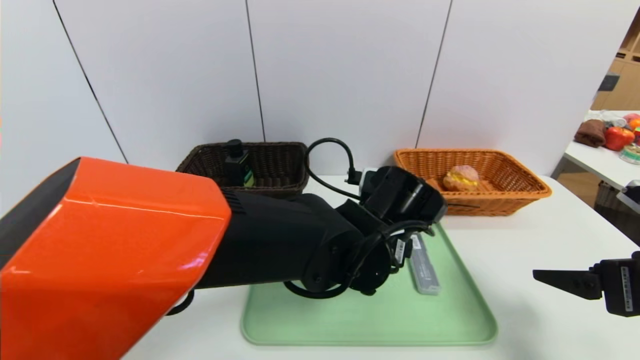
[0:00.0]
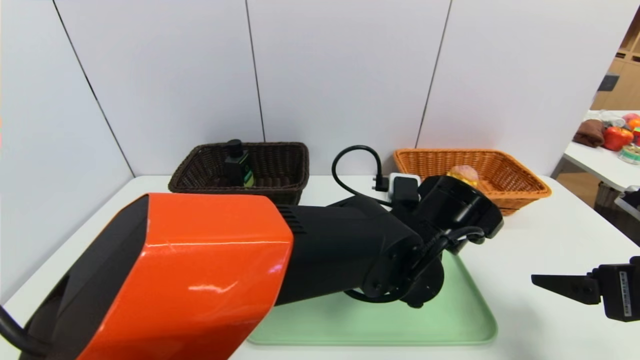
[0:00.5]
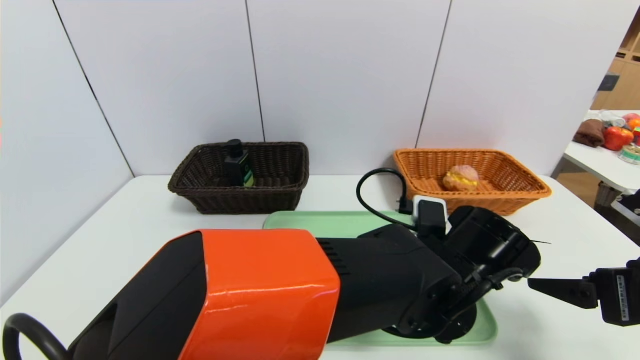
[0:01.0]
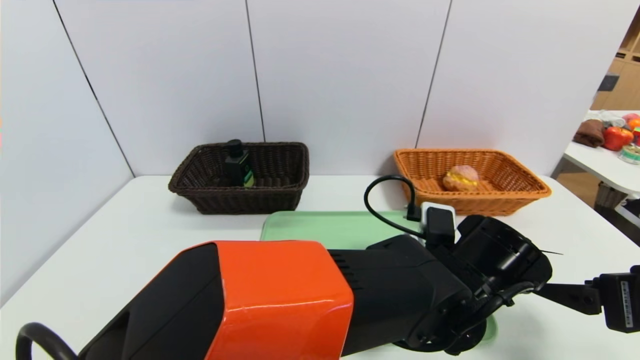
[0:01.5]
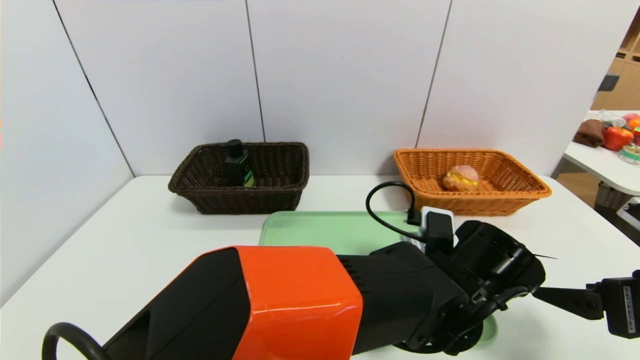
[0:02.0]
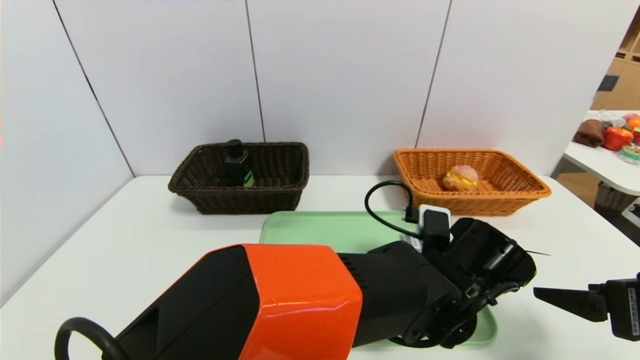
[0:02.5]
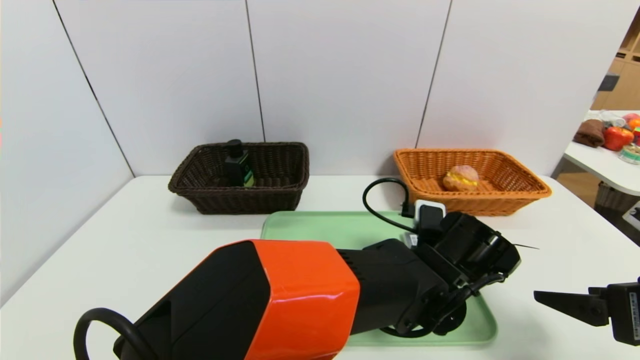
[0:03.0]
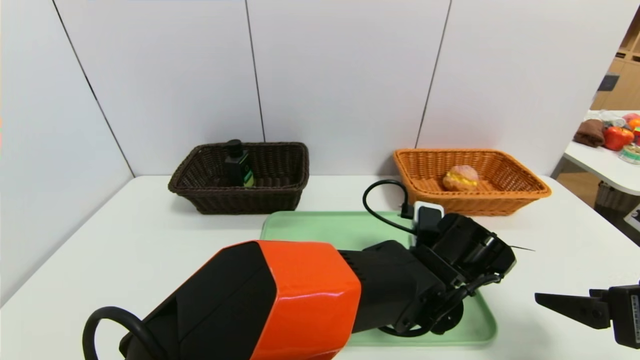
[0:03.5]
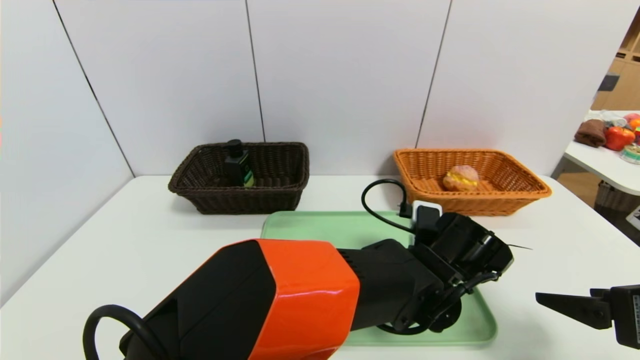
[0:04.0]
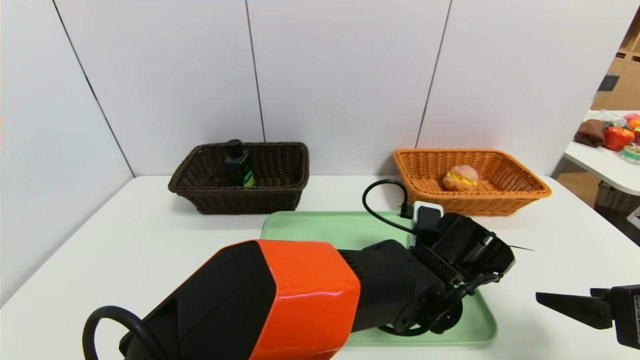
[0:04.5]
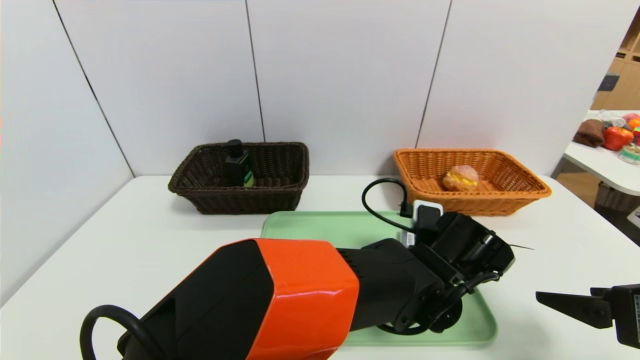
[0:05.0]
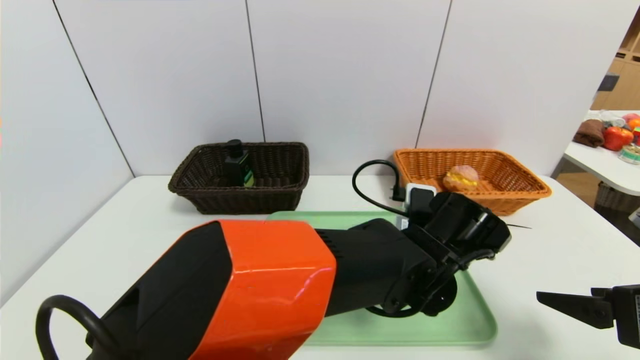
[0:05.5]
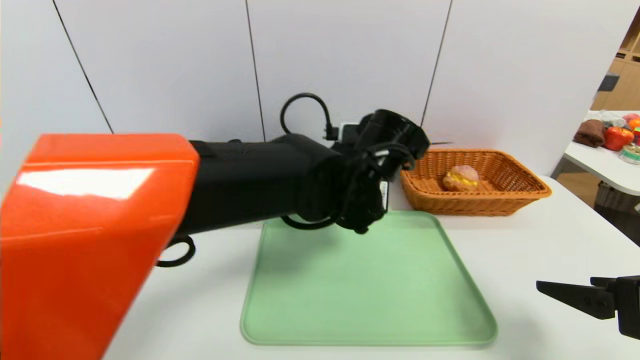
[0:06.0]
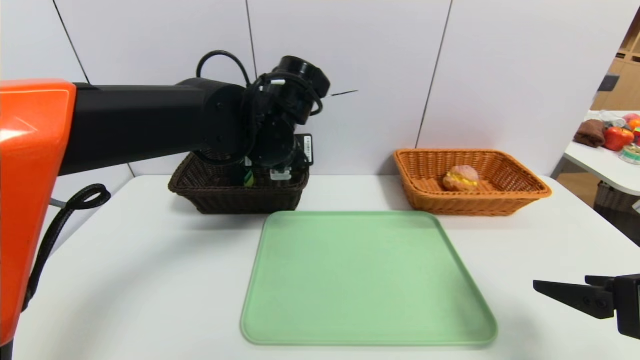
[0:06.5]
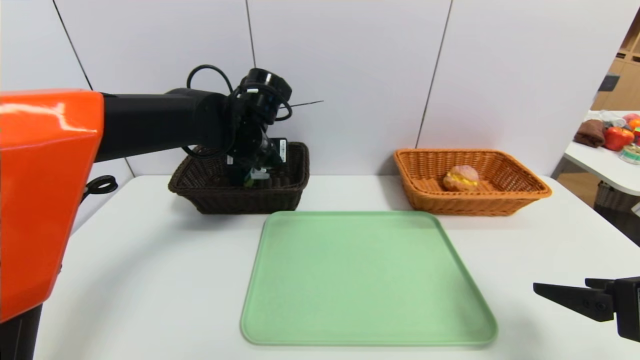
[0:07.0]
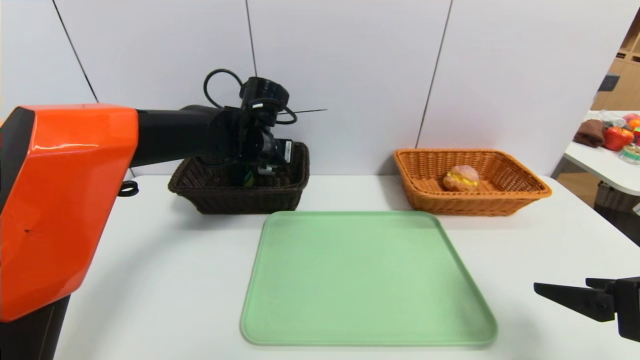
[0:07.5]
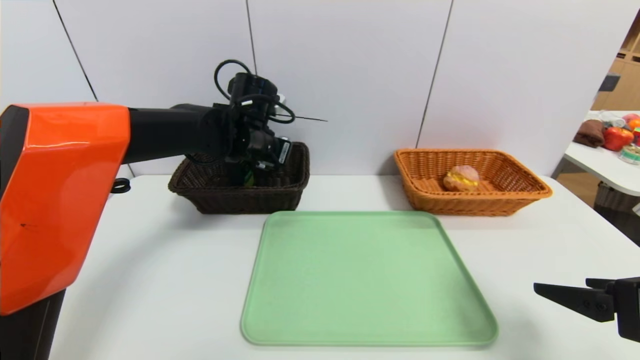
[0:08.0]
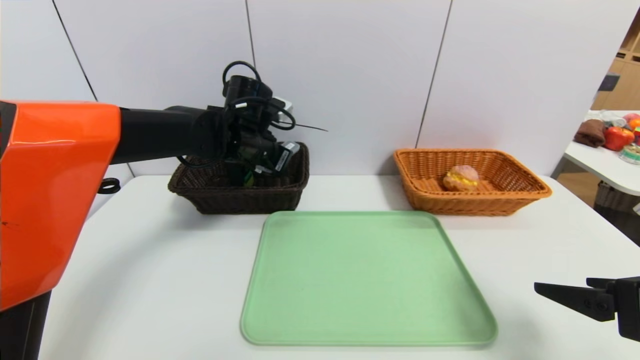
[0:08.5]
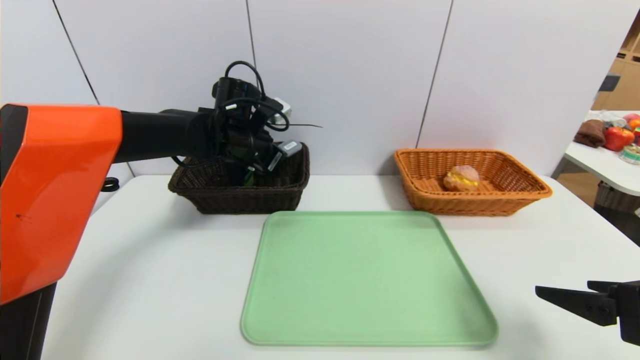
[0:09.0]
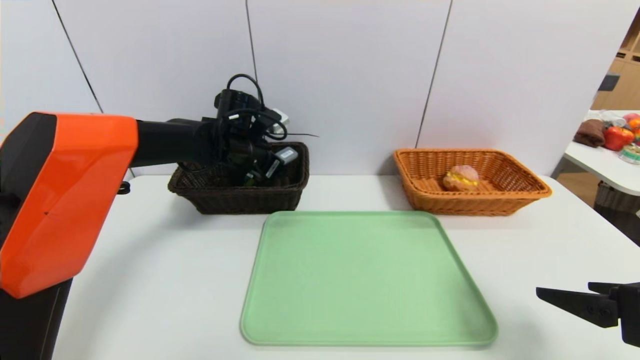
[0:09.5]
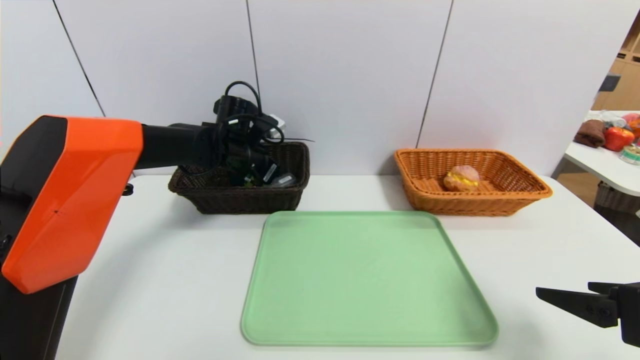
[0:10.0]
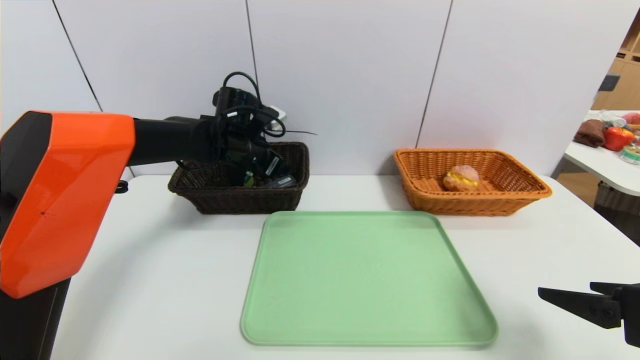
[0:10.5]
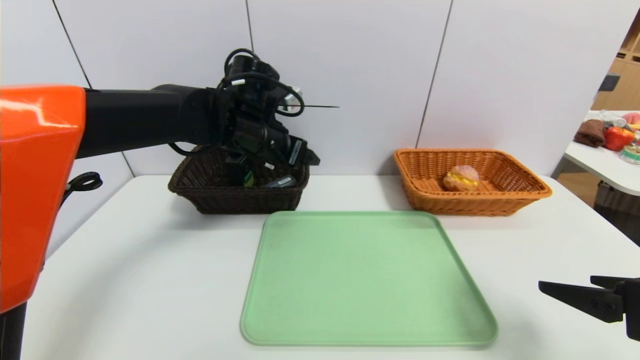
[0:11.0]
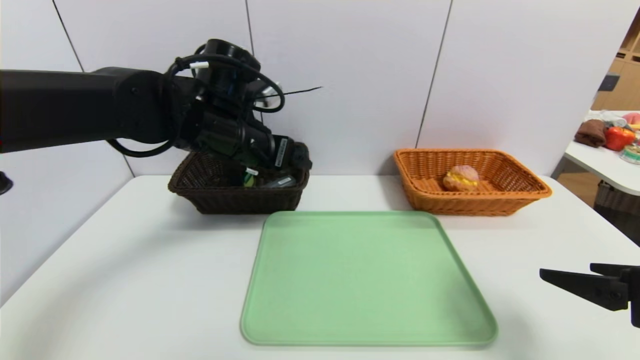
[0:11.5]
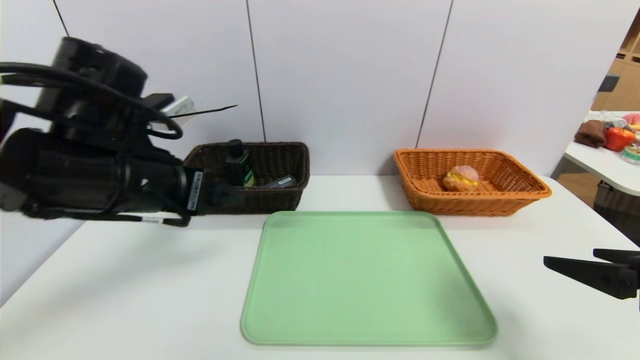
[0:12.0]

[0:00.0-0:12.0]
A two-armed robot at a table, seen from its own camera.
Task of the whole recording: place the food in the right basket with the right gripper, and place the non food items in the left basket with the left gripper.
Step, 0:00.0 to 0:10.5: Grasp the compass and put it in the left basket.
0:00.0 to 0:02.0: The left gripper travels to the right by about 10 cm.
0:02.0 to 0:04.0: The grippers stay close to where they were, moving slightly.
0:04.0 to 0:06.0: The left gripper heads upward and to the left, covering about 15 cm, and closes its fingers.
0:06.0 to 0:08.0: The left gripper goes about 20 cm to the left and forward.
0:08.0 to 0:10.0: The left gripper moves about 5 cm, and opens its fingers.
0:10.0 to 0:12.0: The left gripper travels backward by some 25 cm, and opens up.

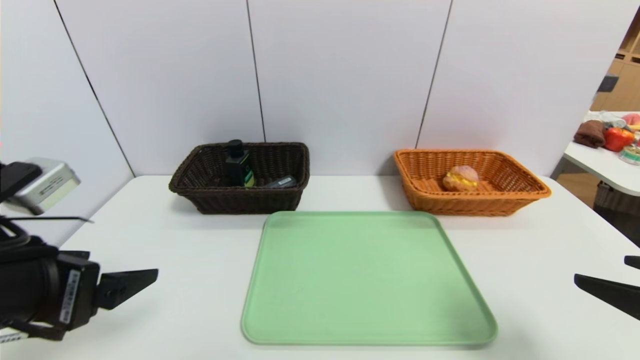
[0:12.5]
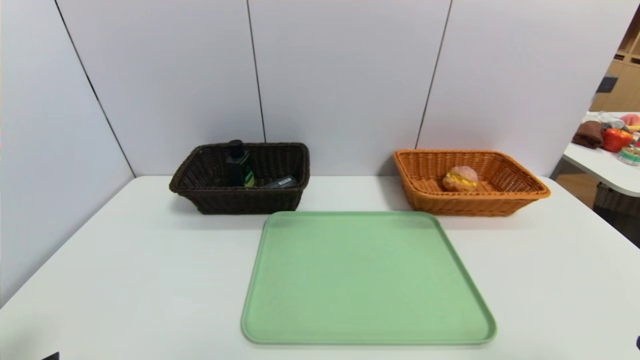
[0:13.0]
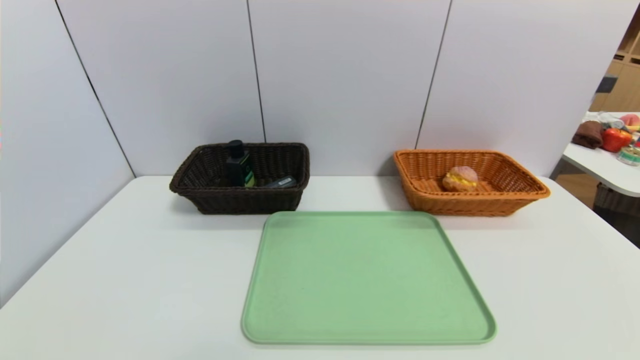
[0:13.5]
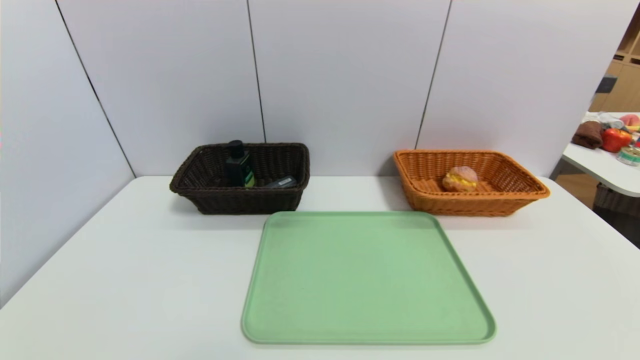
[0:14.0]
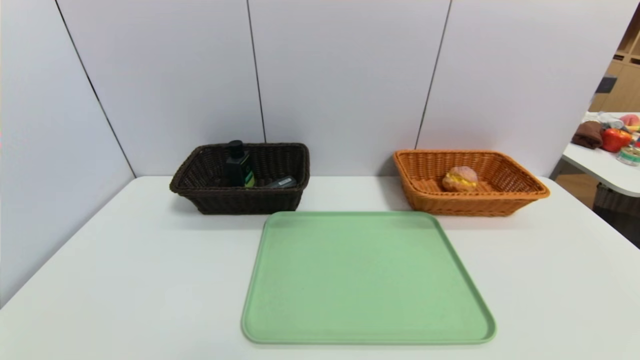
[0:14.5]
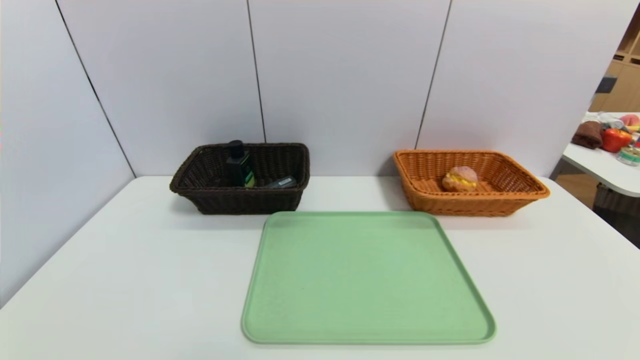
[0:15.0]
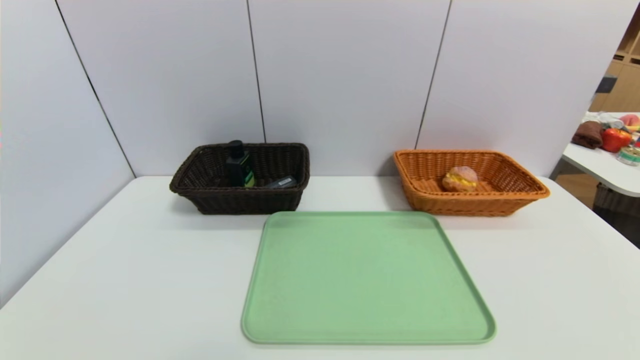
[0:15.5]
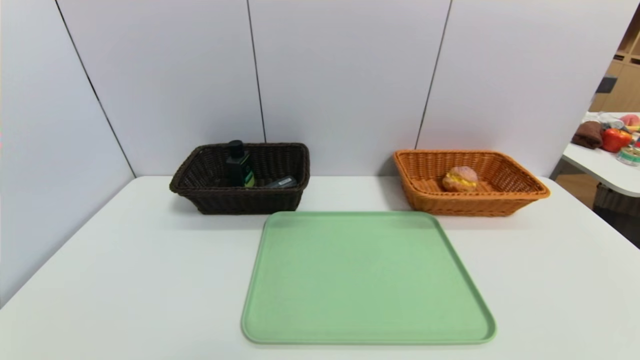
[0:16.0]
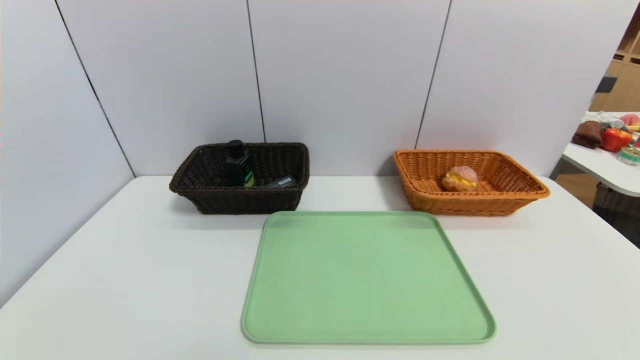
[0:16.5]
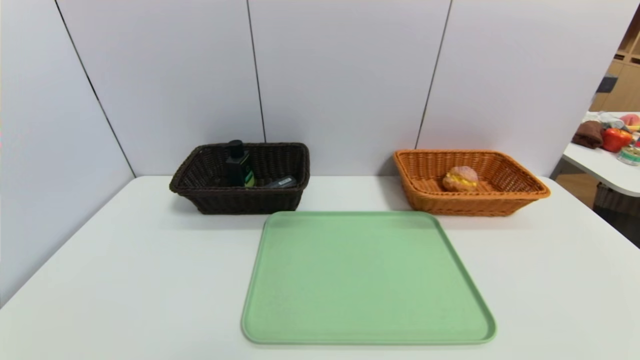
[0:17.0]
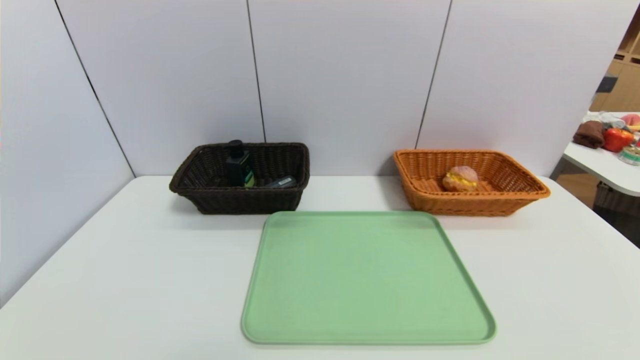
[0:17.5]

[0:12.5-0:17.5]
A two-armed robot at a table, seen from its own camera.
Task of the whole recording: place the food in the right basket with the right gripper, and place the non food items in the left basket with the left gripper.
0:12.5 to 0:15.0: Both grippers travel together backward and downward, about 20 cm.

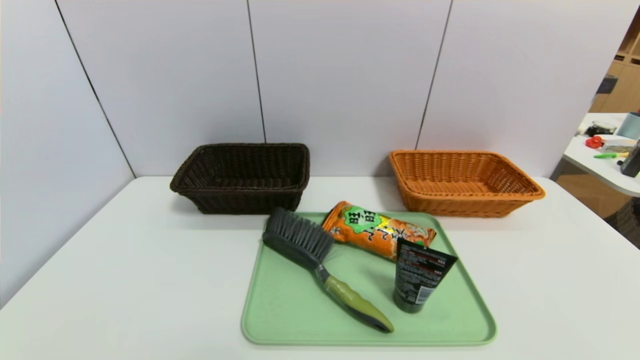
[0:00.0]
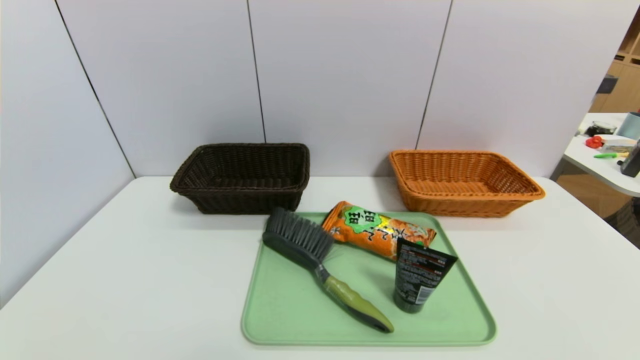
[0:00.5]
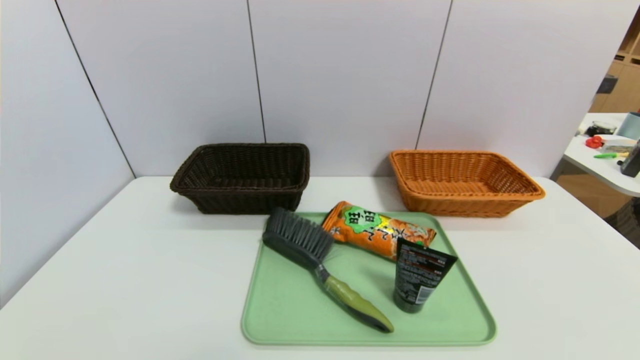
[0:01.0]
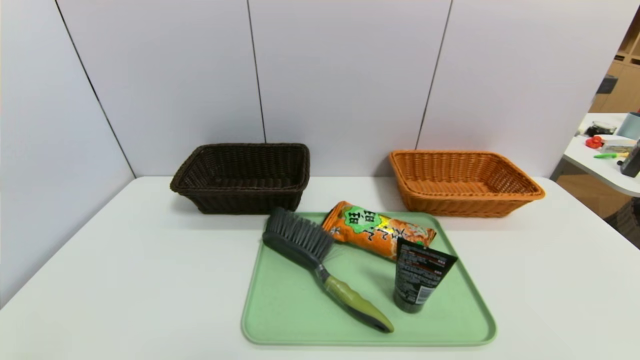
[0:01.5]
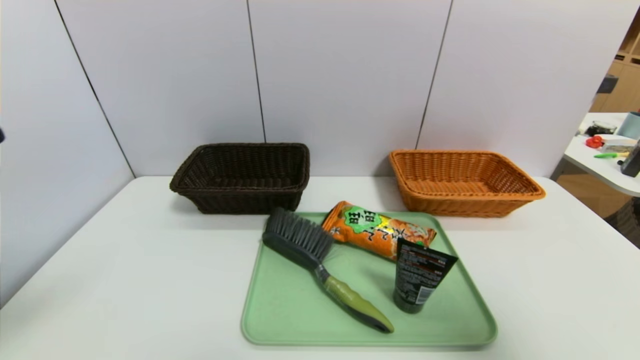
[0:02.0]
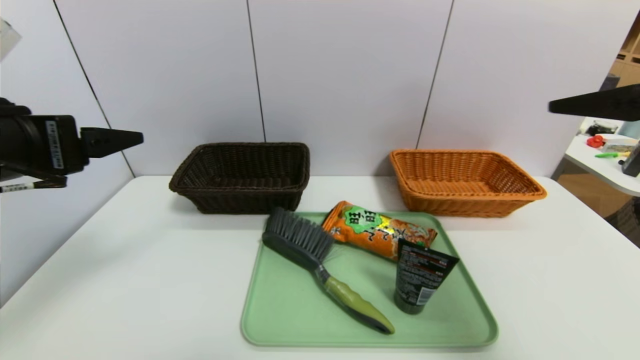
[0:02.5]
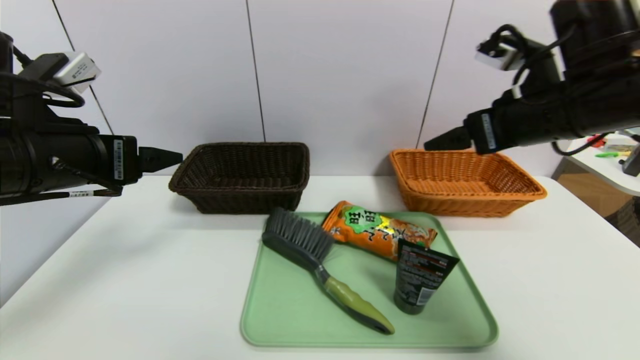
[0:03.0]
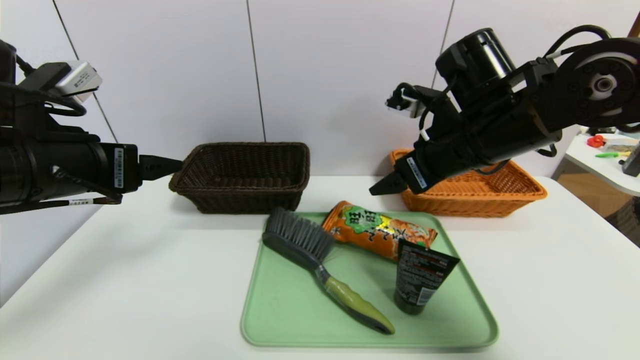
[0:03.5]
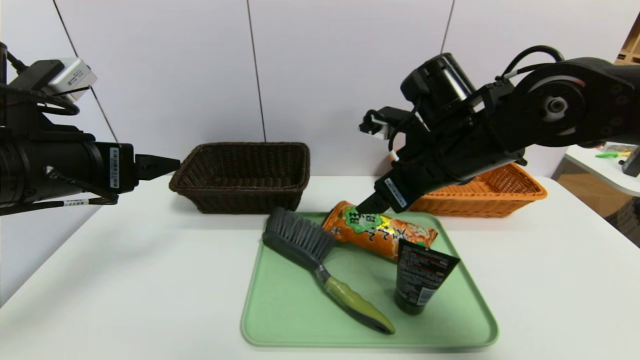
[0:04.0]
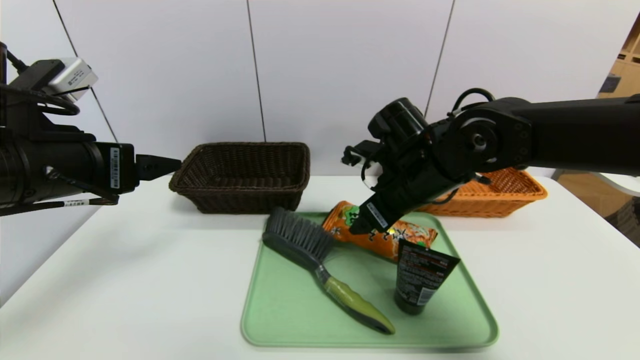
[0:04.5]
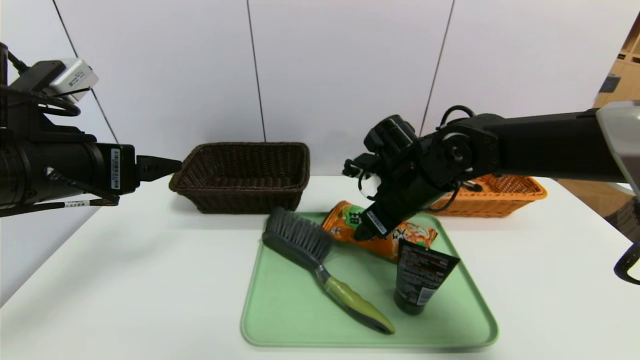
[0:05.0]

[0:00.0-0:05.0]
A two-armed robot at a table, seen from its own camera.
Task of the whole recording: place the food in the right basket with the right gripper, and place the non food items in the left basket with the left gripper.
0:00.0 to 0:02.5: Both grippers move upward and forward, approximately 35 cm.
0:02.5 to 0:05.0: The right gripper goes some 30 cm to the left, downward and forward.
